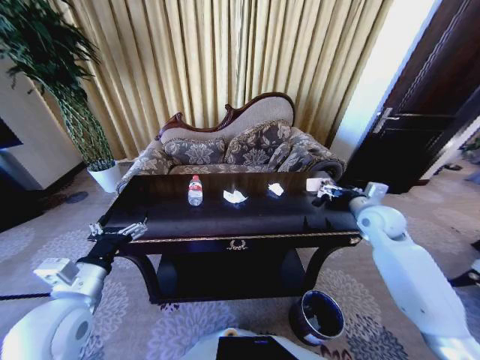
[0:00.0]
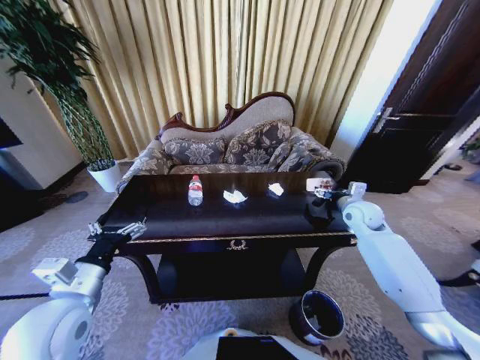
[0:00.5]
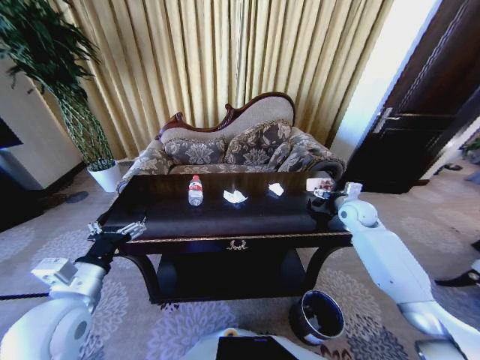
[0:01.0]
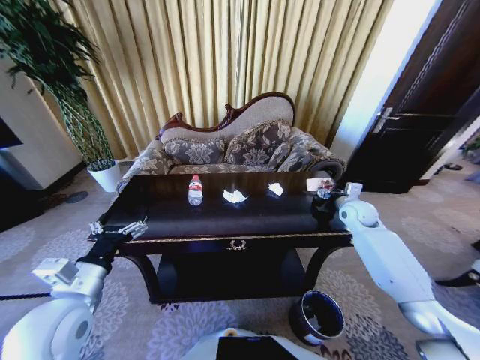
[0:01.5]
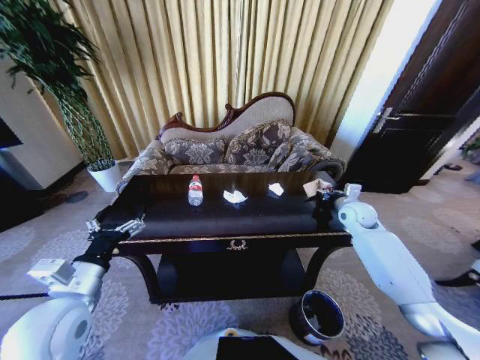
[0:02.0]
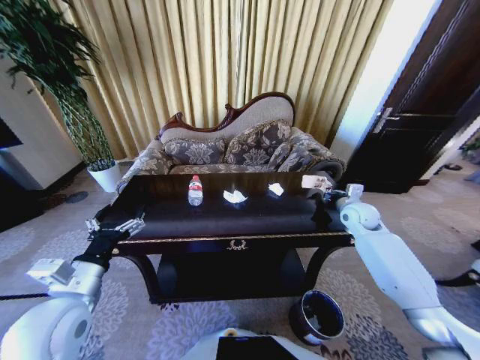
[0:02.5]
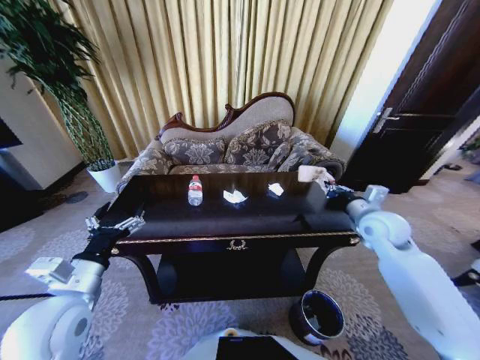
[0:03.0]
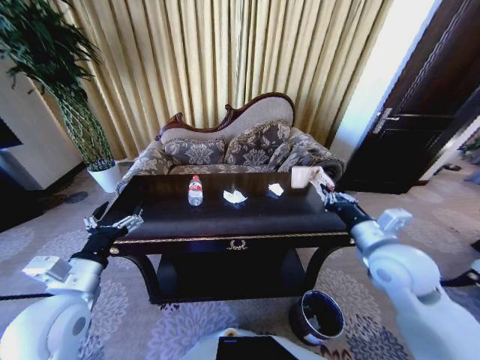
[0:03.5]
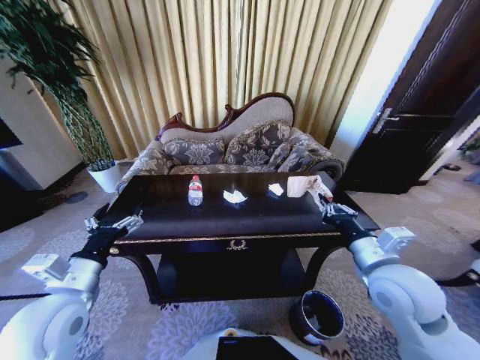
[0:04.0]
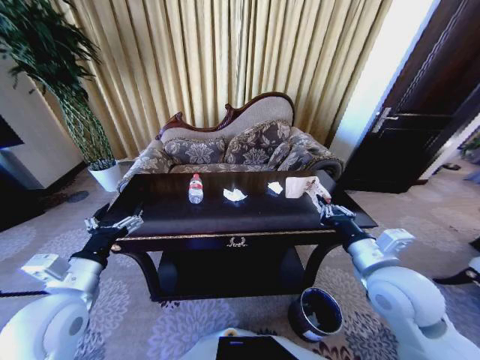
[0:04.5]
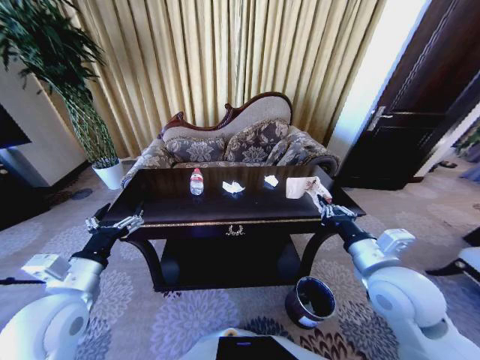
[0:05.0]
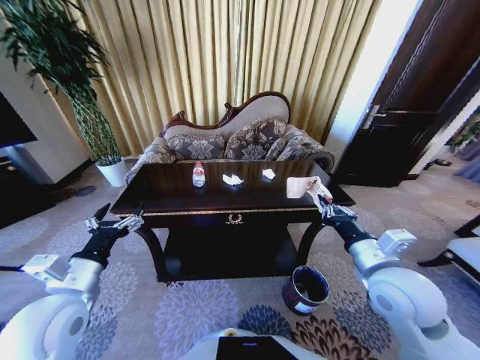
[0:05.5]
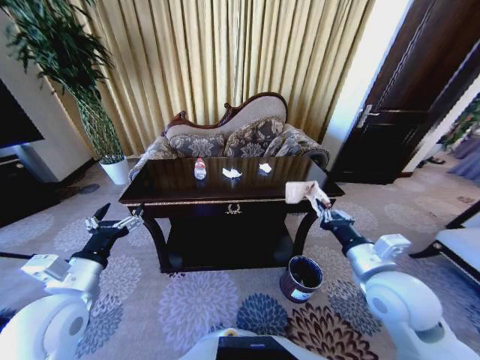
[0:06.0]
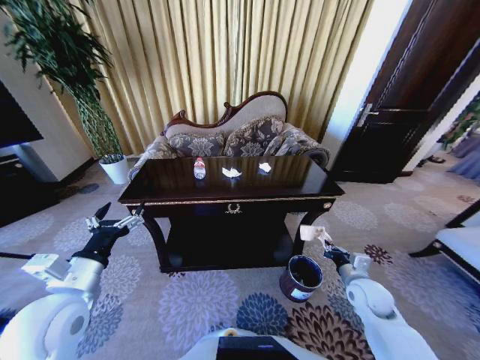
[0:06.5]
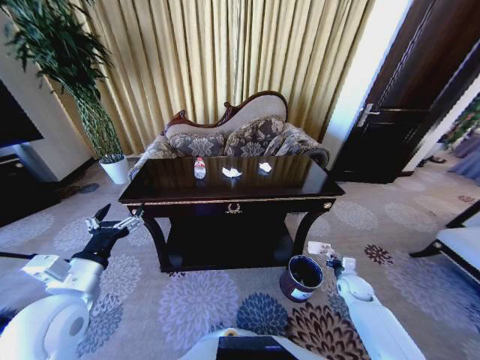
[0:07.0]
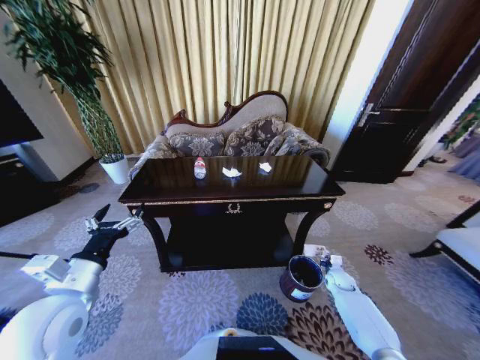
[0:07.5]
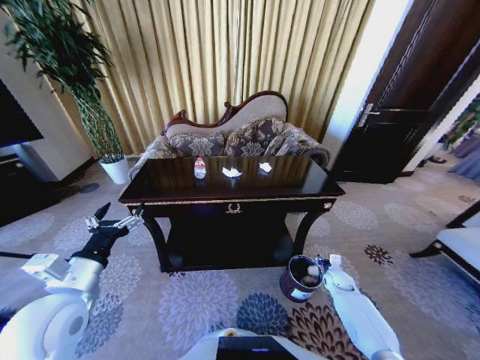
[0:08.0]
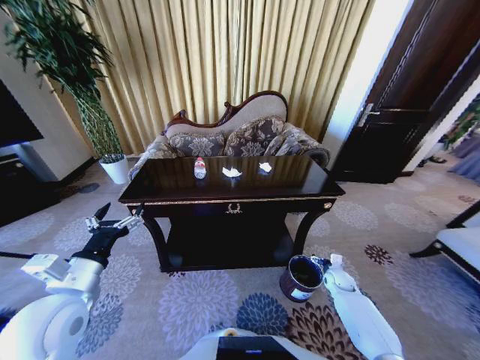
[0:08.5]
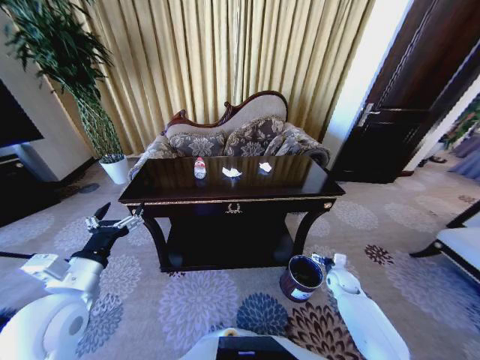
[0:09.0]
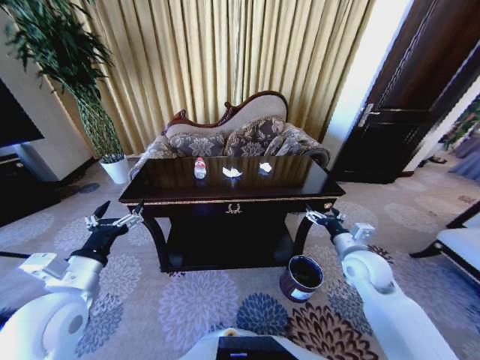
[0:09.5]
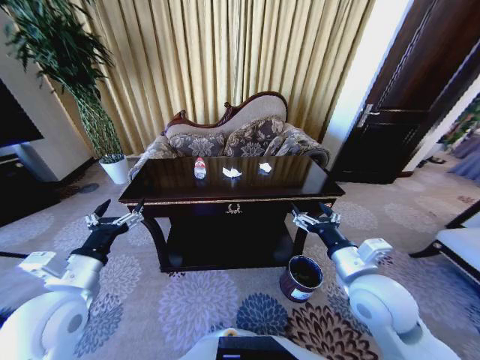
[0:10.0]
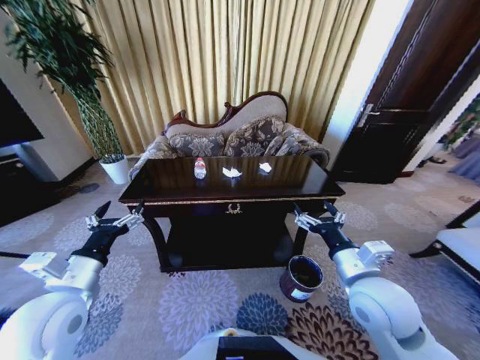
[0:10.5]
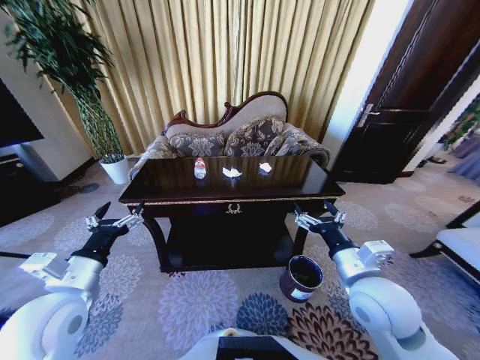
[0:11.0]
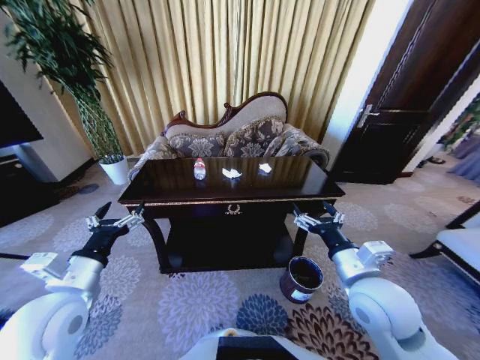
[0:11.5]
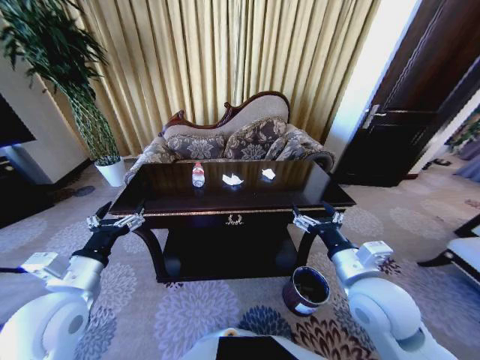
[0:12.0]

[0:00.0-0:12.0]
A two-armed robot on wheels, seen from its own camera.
Task of the whole recording: Move to the front of the table and place the trash on the table into the trash bin.
0.0 to 2.0 s: The right gripper moves forward, some 5 cm, and closes its fingers.
2.0 to 4.0 s: The right gripper heads backward and to the left, covering approximately 25 cm.
6.0 to 8.0 s: The right gripper moves downward, some 35 cm, and opens up.
8.0 to 10.0 s: The right gripper shifts some 40 cm upward, to the left and backward, and opens.

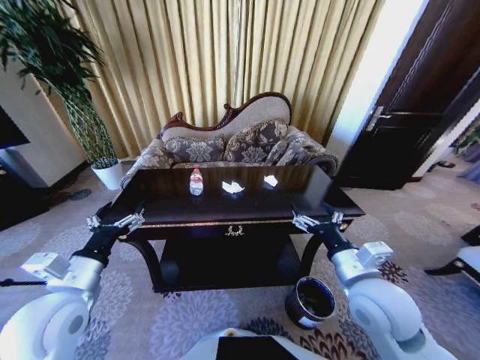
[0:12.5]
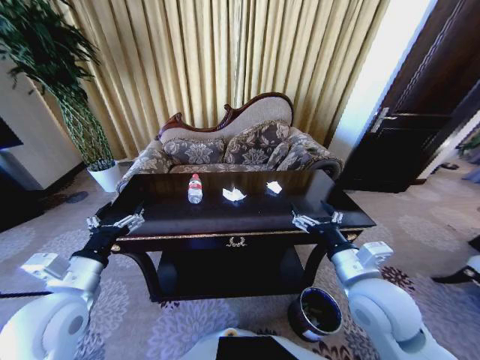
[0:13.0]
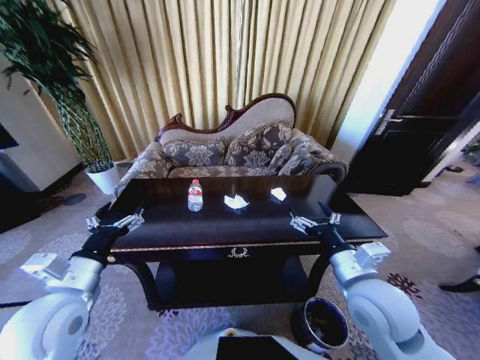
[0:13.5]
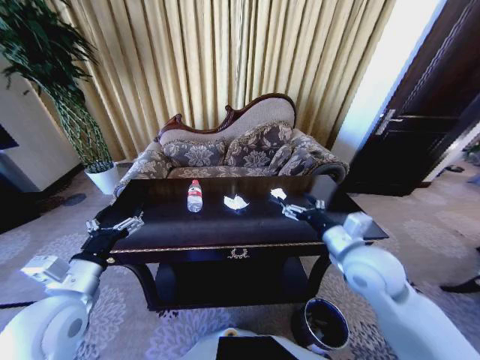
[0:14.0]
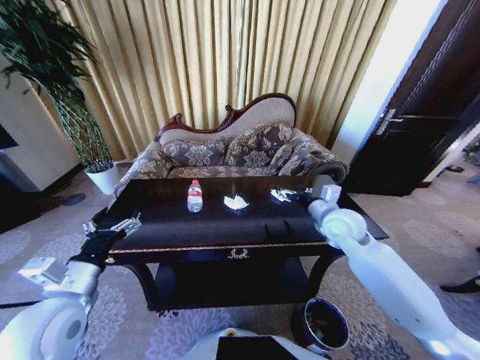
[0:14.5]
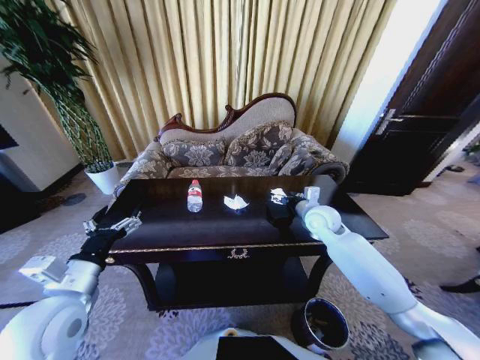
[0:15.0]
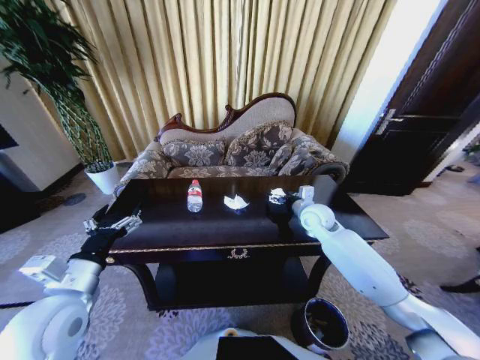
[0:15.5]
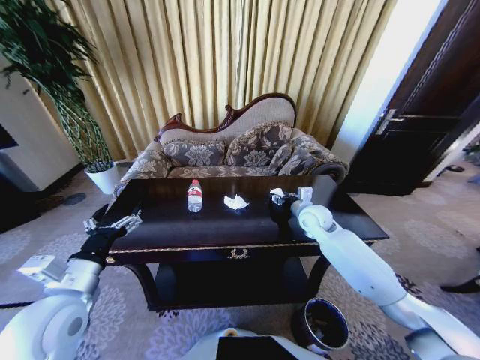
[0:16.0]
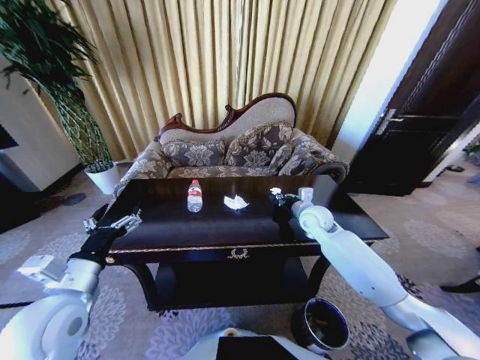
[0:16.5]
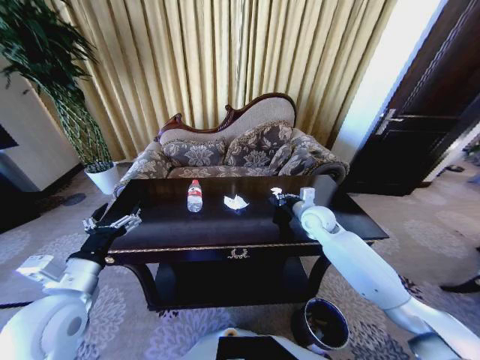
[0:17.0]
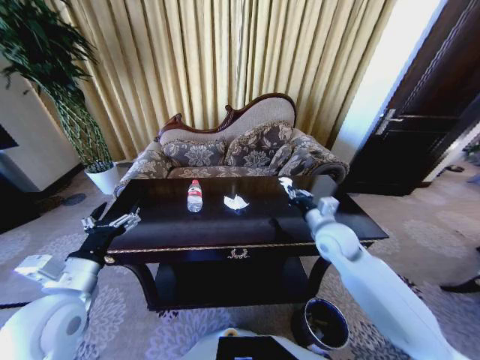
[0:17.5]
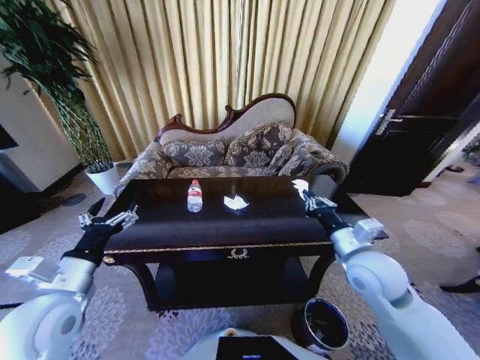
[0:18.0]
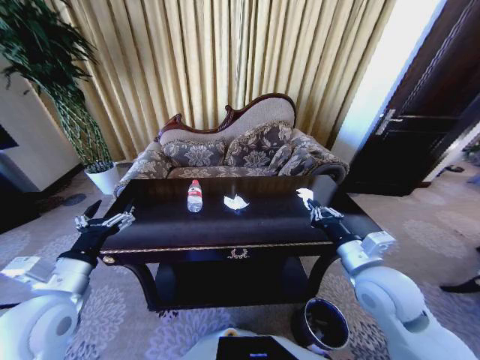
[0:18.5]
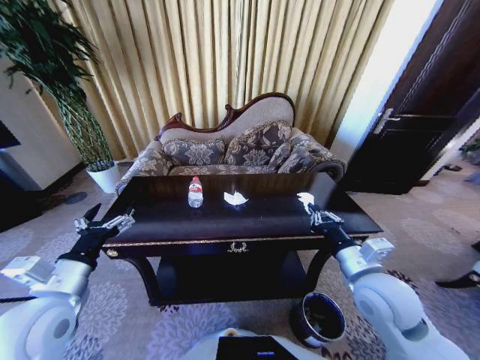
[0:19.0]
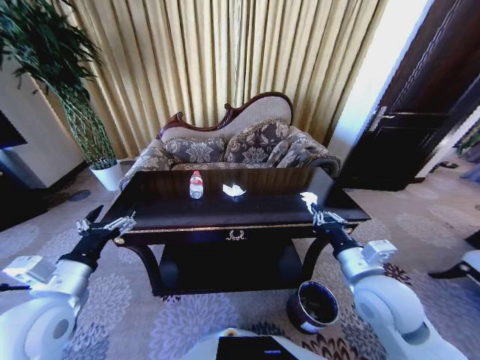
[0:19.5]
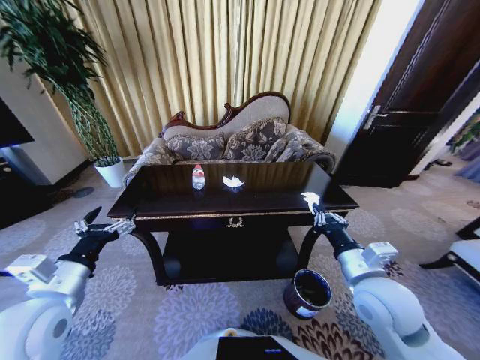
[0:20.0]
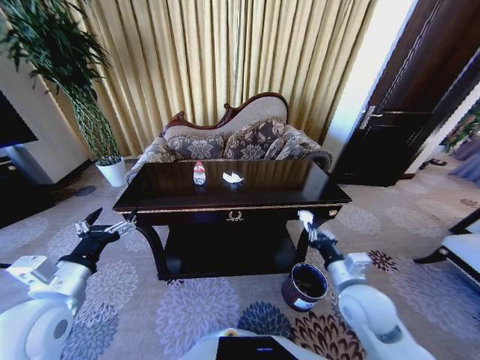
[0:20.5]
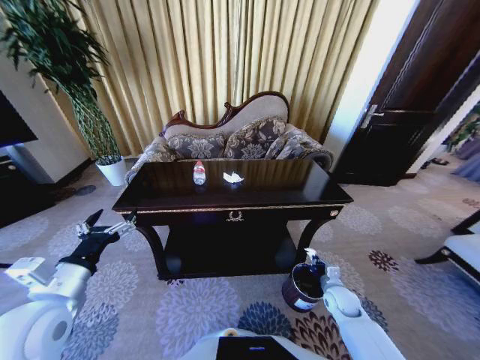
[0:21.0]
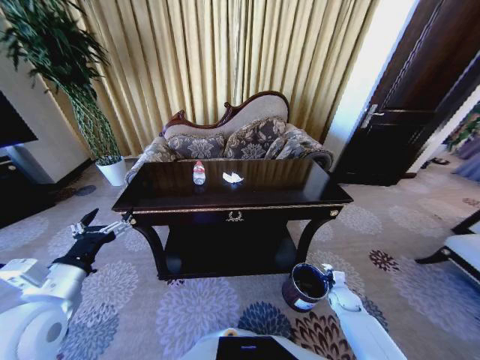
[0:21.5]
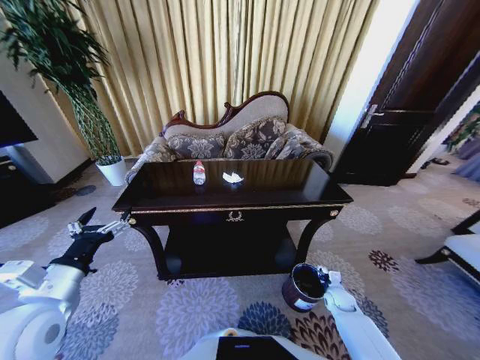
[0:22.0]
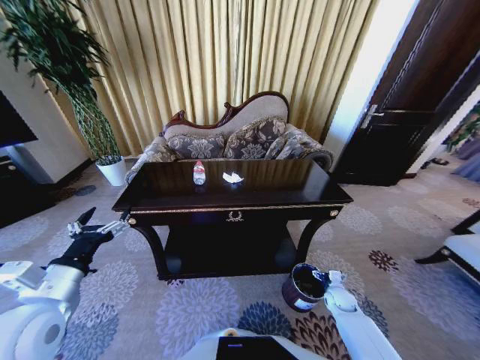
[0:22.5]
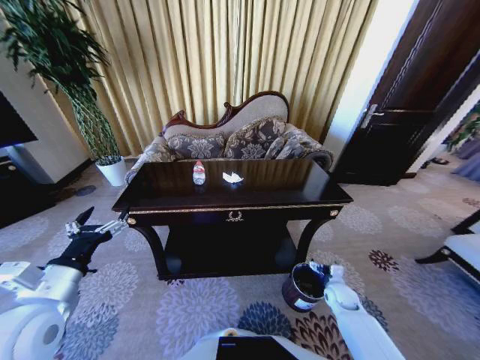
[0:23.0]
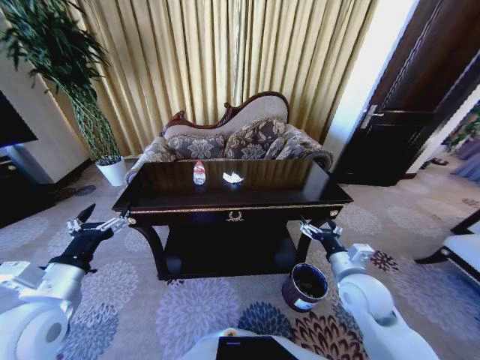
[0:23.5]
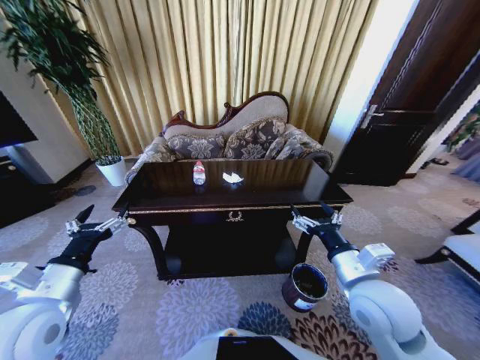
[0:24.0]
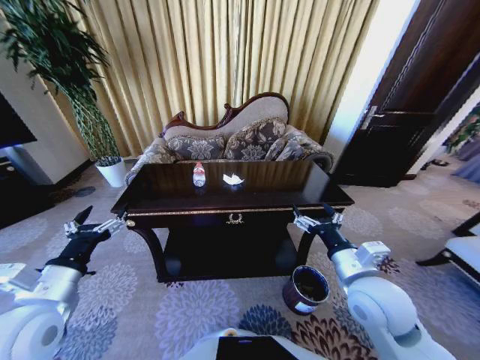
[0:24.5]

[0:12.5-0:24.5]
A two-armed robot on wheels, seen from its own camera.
Task of the whole recording: Move to the front of the table and place the trash on the table into the trash bin.
12.5 to 14.5 s: The right gripper moves forward, some 20 cm.
14.5 to 16.5 s: The right gripper is displaced forward and downward by approximately 10 cm, and closes.
16.5 to 18.5 s: The right gripper heads backward, covering approximately 25 cm.
18.5 to 20.5 s: The right gripper goes approximately 10 cm downward.
20.5 to 22.5 s: The right gripper travels downward and to the right by approximately 30 cm, and opens up.
22.5 to 24.5 s: The right gripper moves upward and to the left, roughly 35 cm.

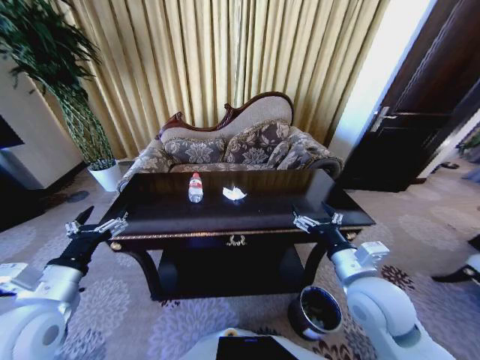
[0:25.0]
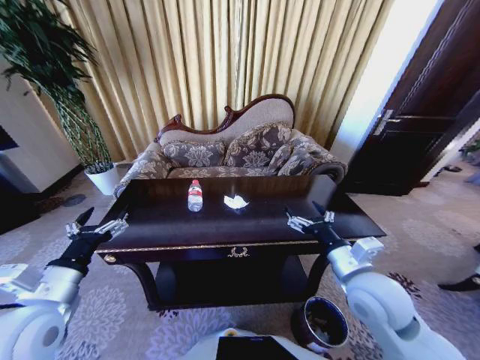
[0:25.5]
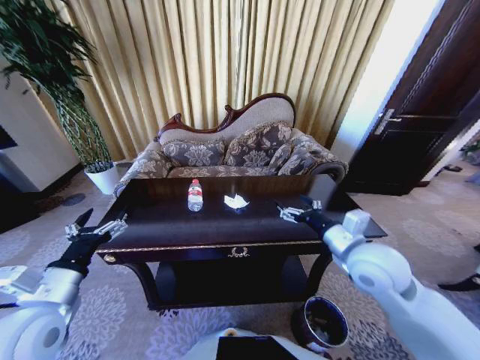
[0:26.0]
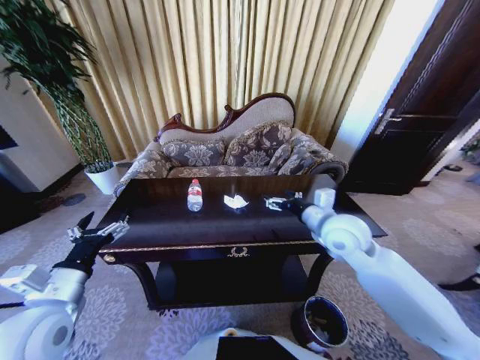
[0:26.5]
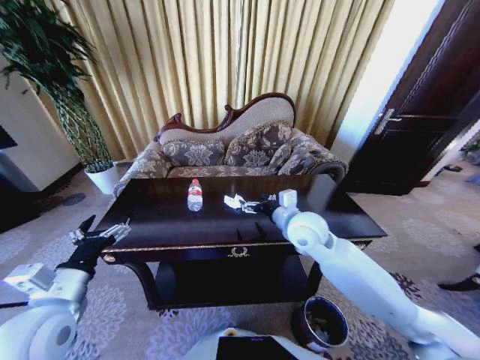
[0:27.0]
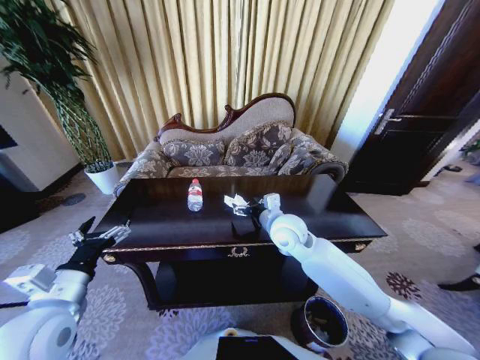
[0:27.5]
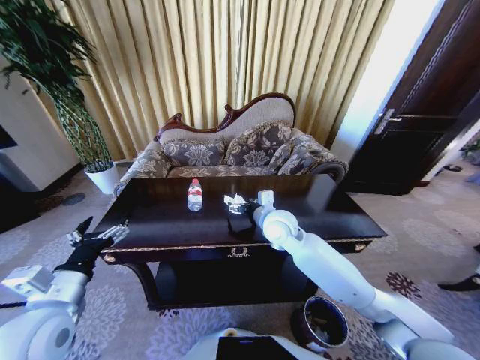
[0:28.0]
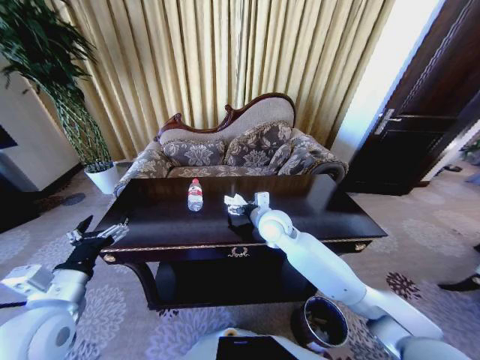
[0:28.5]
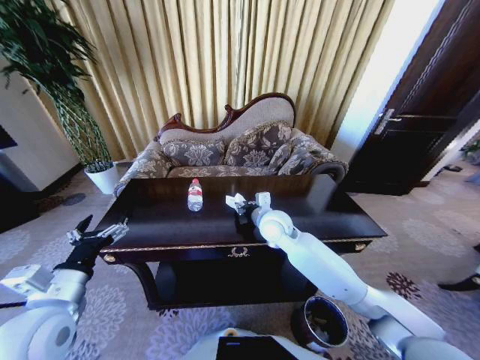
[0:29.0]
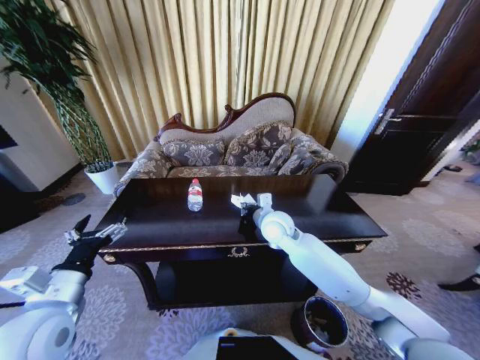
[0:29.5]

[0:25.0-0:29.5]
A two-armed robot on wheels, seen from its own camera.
Task of the whole recording: Move to the front of the table and place the trash on the table into the trash bin.
25.0 to 27.0 s: The right gripper travels forward and to the left by approximately 20 cm.
27.0 to 29.5 s: The right gripper travels to the left by approximately 5 cm, and closes.
